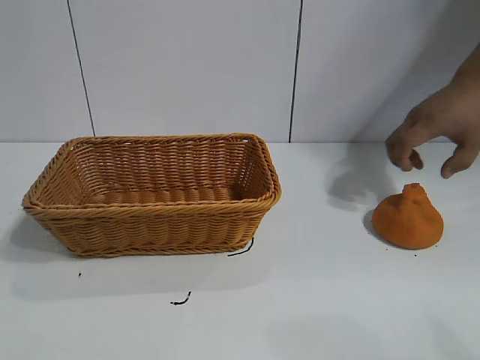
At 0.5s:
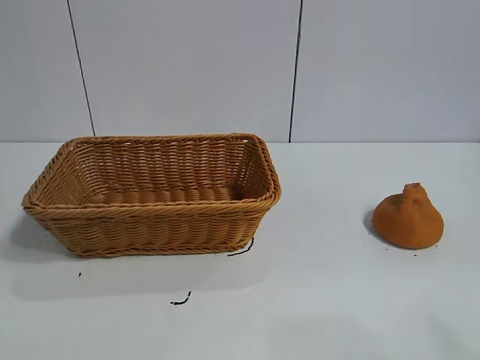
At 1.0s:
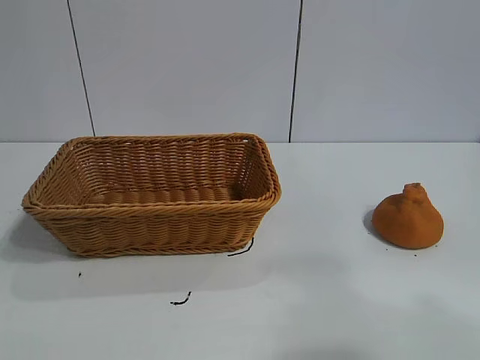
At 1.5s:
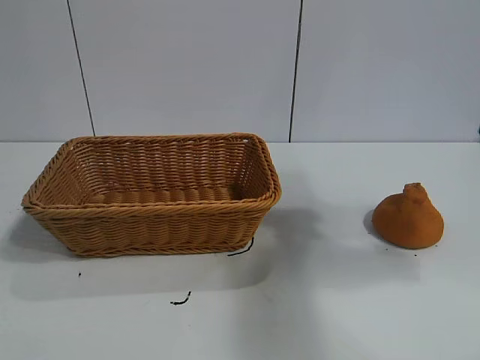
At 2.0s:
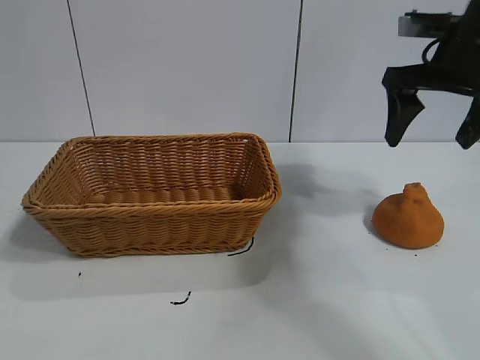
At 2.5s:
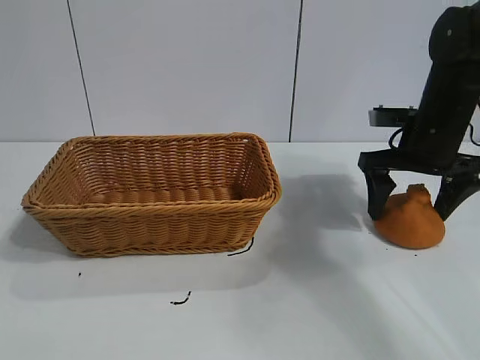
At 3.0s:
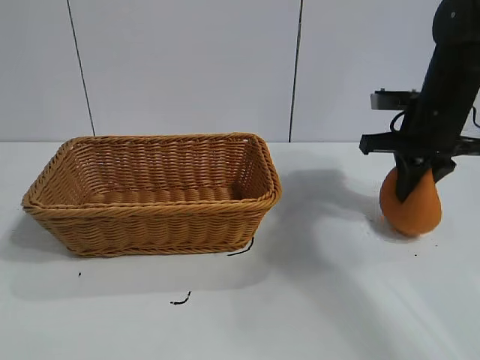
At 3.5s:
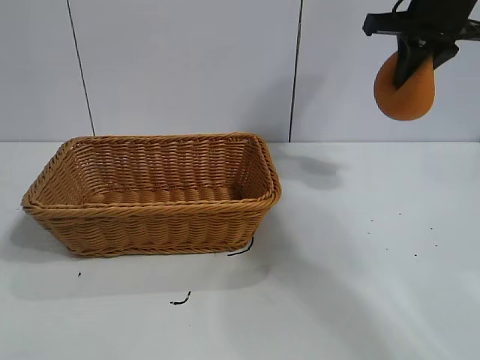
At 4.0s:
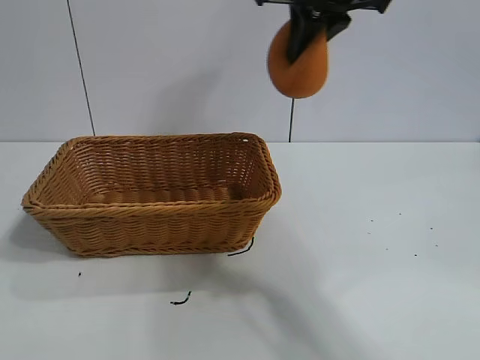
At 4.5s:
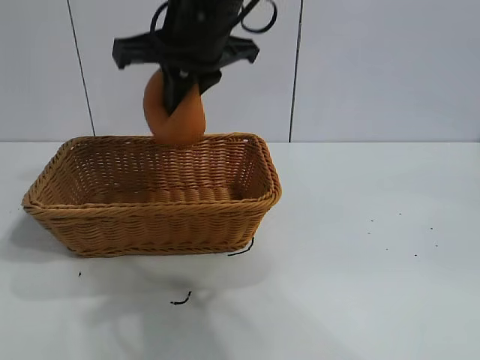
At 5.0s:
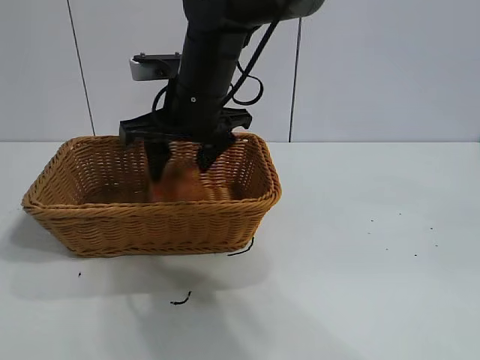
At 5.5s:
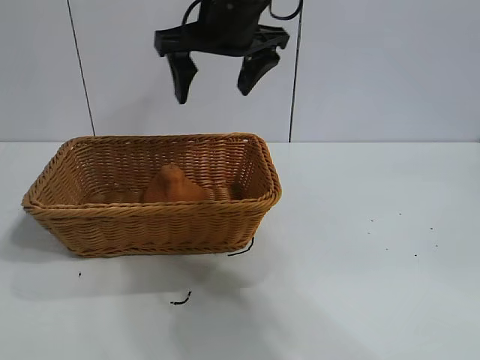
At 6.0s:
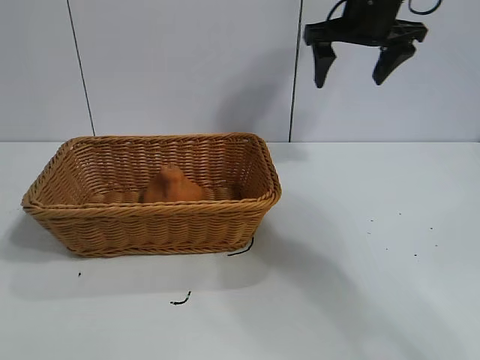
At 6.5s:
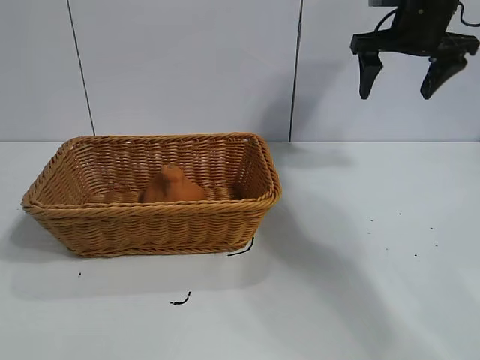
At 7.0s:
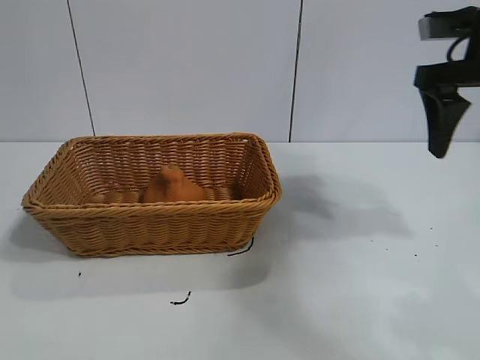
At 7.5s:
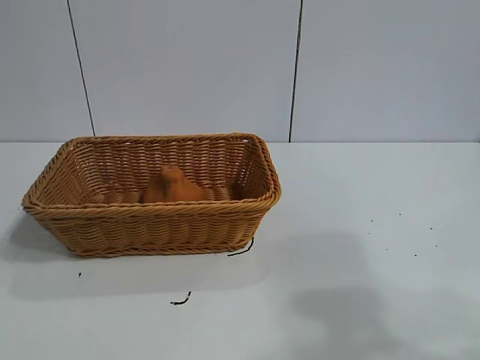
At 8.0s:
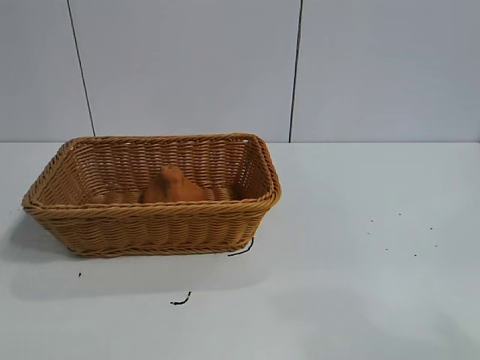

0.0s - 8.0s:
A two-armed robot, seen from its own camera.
Task of the whole recording: pick up the orange and put it into the basket.
Step, 1.0s - 2.5s: Grasp the orange with right gripper.
Step, 3.5s - 5.0s: Place the orange in the basket with right gripper.
